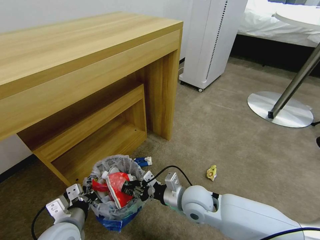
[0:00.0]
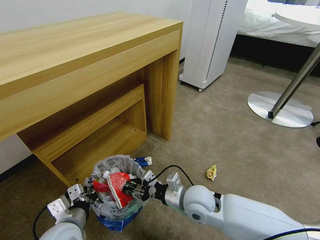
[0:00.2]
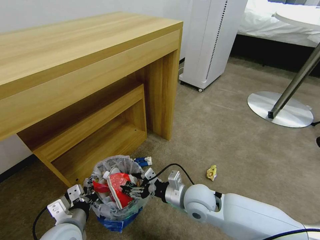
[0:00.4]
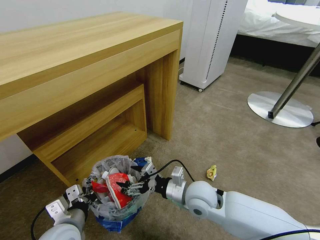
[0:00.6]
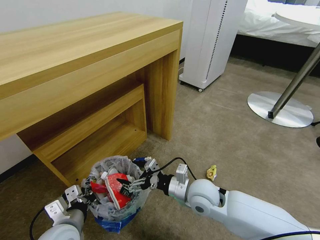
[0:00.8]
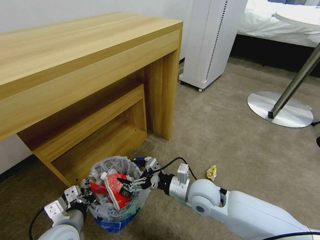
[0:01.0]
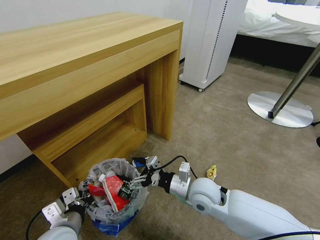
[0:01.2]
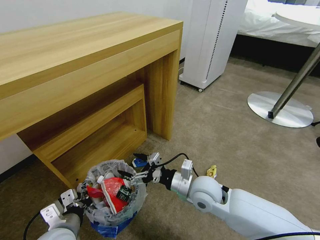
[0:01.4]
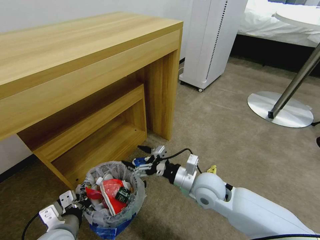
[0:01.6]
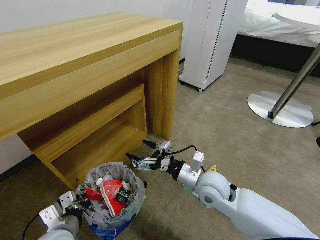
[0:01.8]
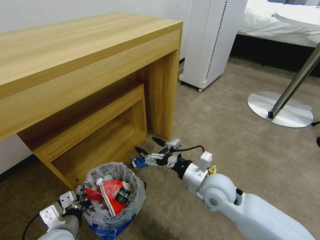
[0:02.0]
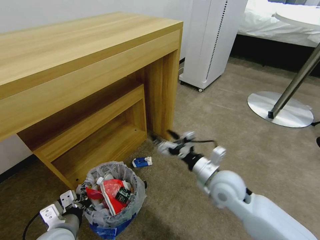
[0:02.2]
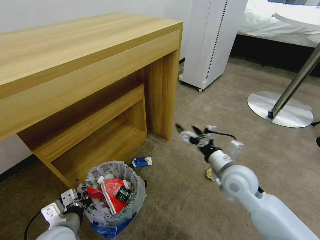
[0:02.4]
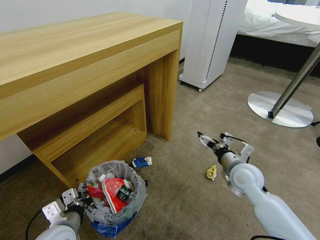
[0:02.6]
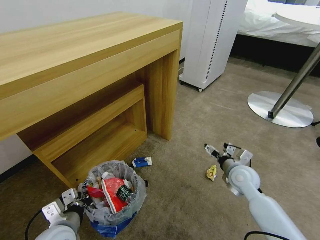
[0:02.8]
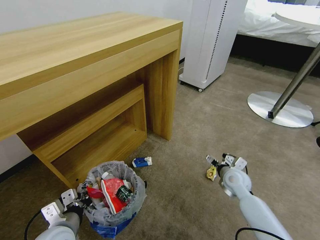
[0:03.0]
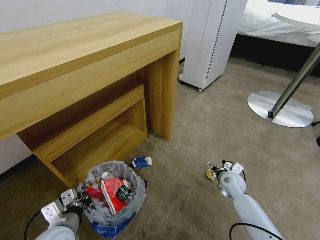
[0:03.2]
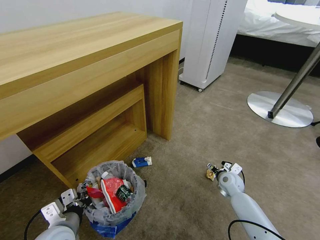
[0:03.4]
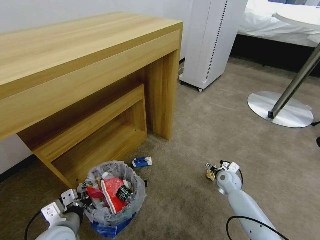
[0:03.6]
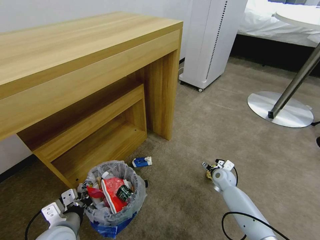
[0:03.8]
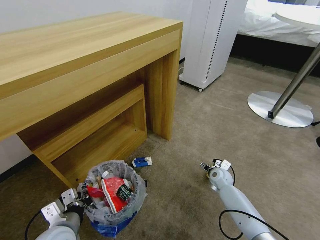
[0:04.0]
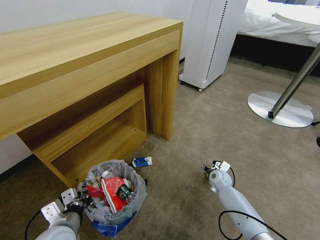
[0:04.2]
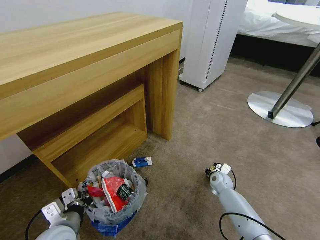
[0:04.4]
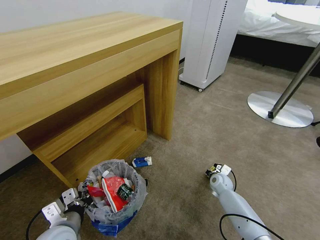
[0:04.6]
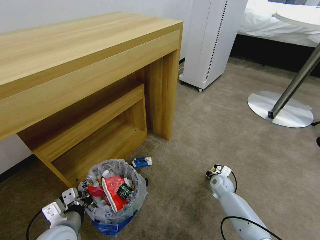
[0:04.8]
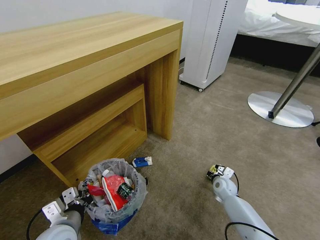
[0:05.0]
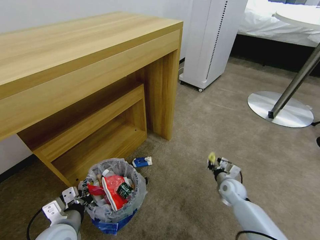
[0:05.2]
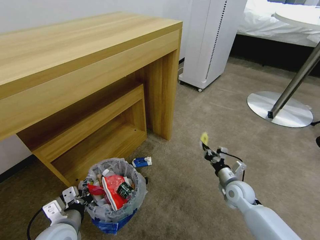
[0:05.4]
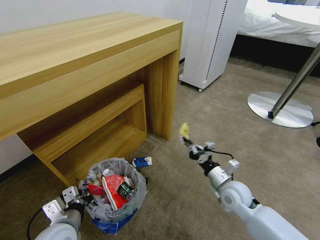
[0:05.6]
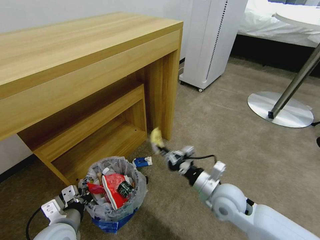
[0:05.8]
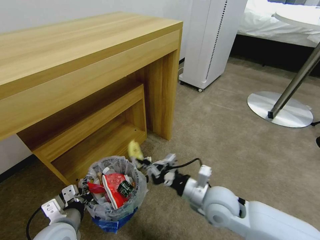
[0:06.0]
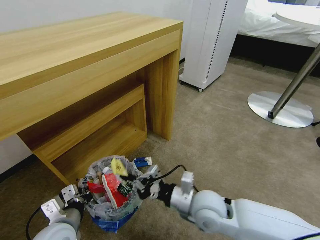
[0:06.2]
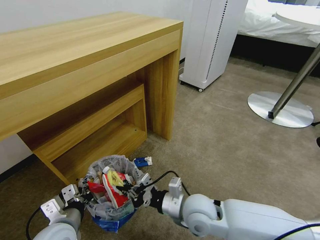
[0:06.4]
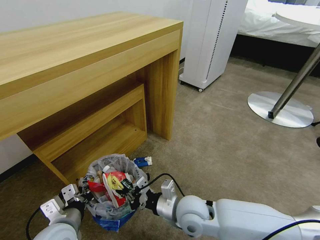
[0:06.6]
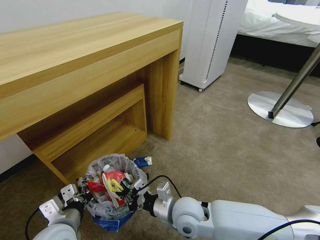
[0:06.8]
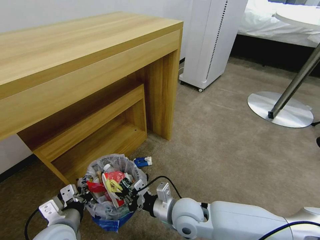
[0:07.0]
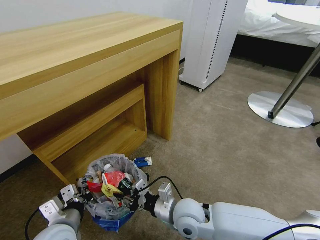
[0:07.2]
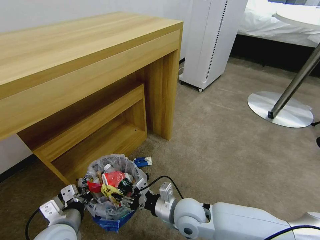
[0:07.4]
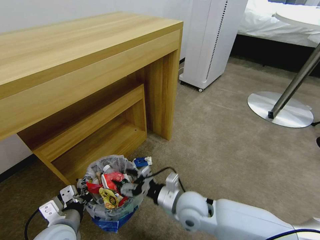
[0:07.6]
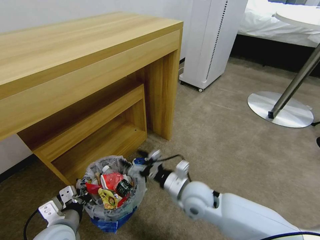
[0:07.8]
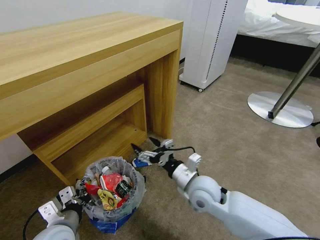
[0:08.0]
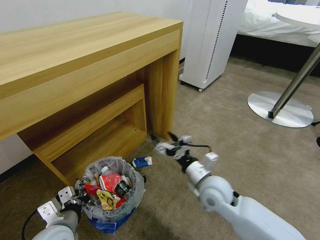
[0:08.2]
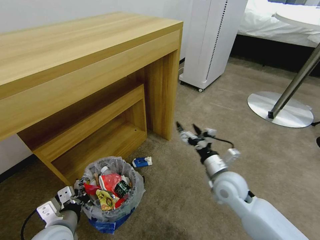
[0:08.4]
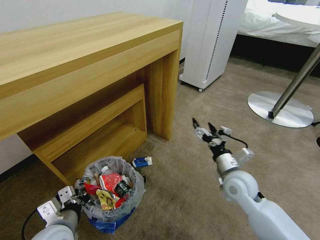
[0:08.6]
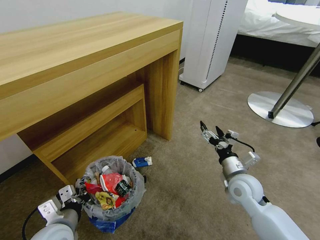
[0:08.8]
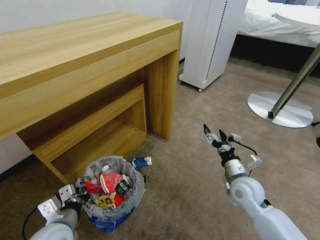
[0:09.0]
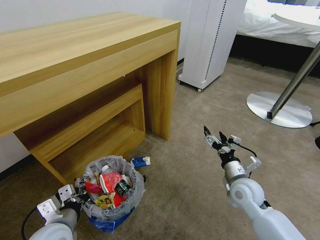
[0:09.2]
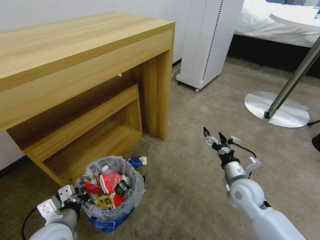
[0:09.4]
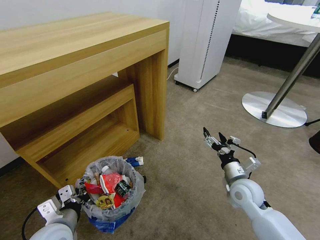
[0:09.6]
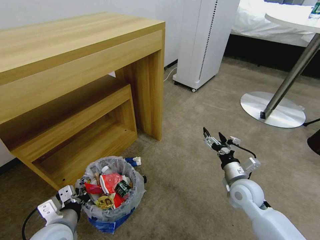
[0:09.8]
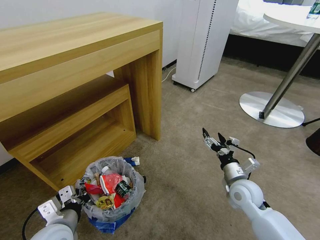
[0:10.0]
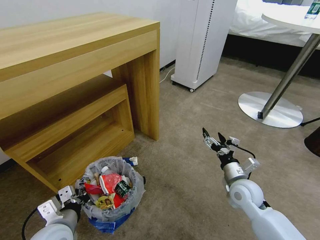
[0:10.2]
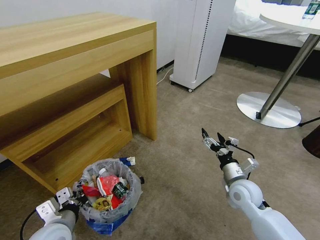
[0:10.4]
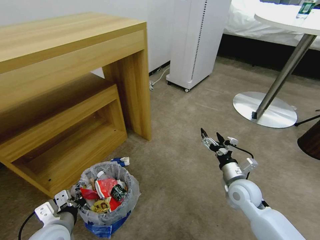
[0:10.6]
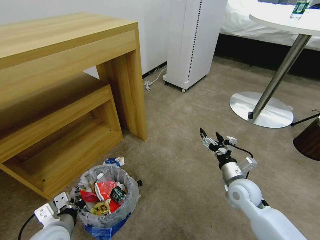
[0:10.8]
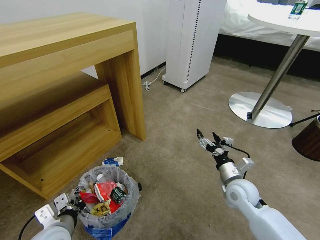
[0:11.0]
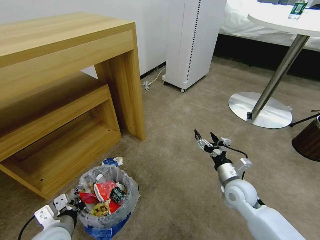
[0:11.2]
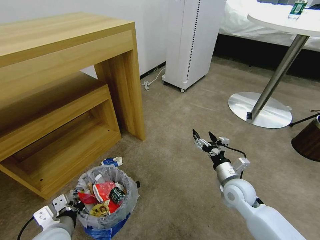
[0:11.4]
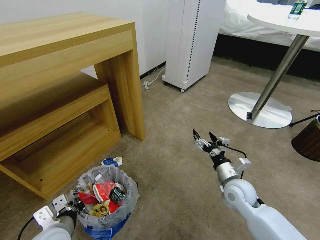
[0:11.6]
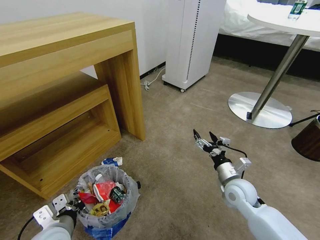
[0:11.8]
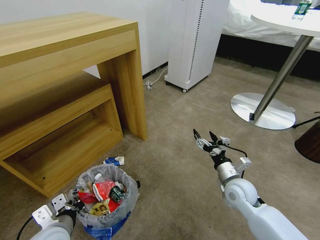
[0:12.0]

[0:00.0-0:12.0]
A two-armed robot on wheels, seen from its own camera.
Task of the whole recording: Pick up the trash bin and place the garbage on the floor into it.
0:00.0 to 0:01.6: The right gripper shifts by approximately 5 cm, and opens up.
0:01.6 to 0:03.0: The right gripper travels to the right, downward and forward by some 20 cm.
0:03.0 to 0:04.4: The right gripper heads downward, covering approximately 10 cm, and closes.
0:04.4 to 0:06.0: The right gripper is displaced upward, backward and to the left by roughly 30 cm, and closes.
0:06.0 to 0:07.6: The right gripper moves to the left, roughly 10 cm, and opens.
0:07.6 to 0:09.0: The right gripper moves to the right, some 20 cm.

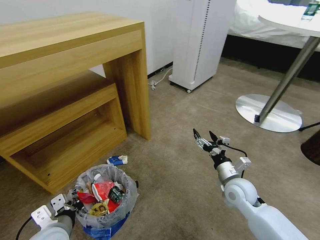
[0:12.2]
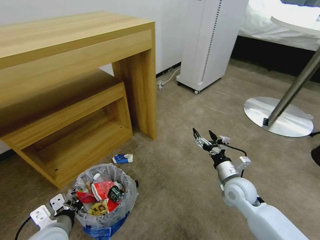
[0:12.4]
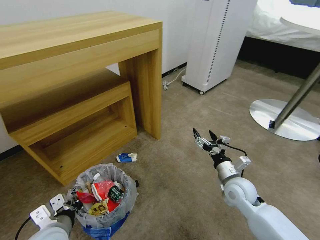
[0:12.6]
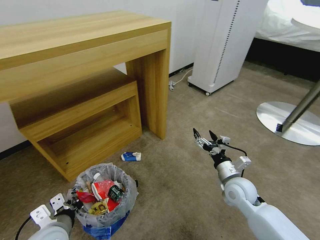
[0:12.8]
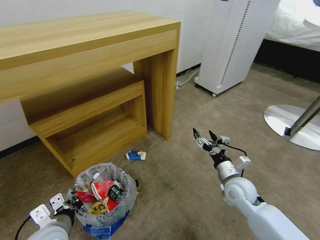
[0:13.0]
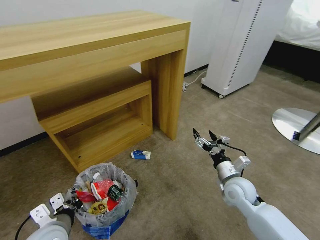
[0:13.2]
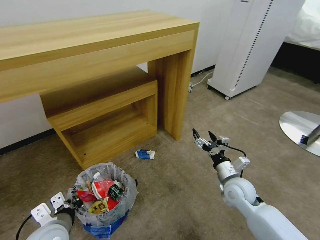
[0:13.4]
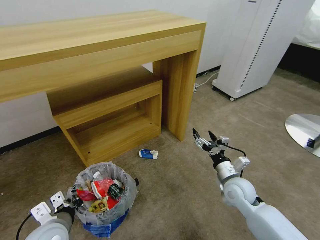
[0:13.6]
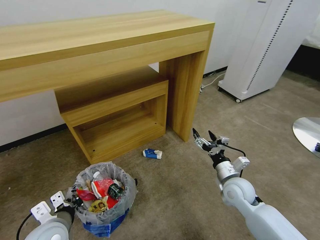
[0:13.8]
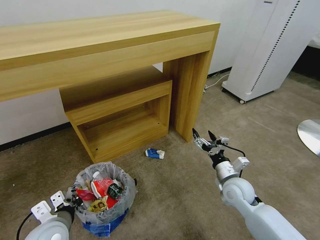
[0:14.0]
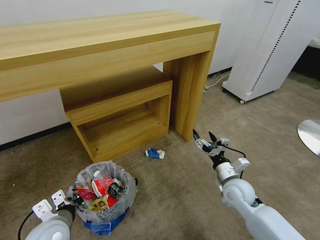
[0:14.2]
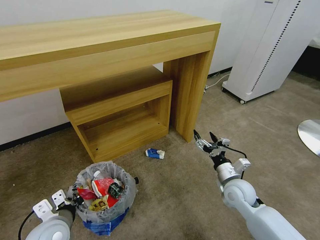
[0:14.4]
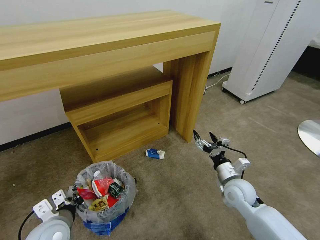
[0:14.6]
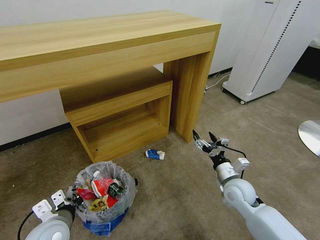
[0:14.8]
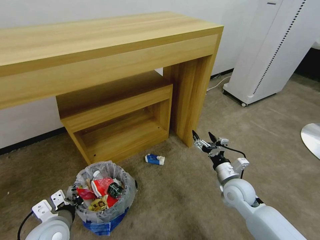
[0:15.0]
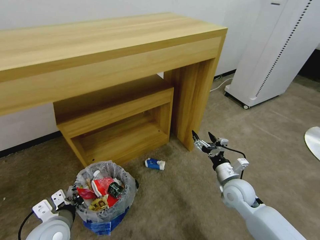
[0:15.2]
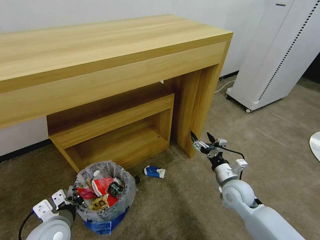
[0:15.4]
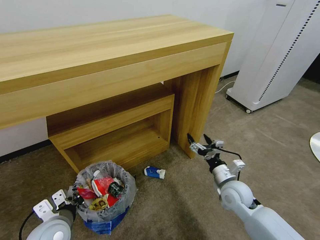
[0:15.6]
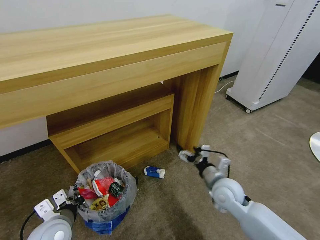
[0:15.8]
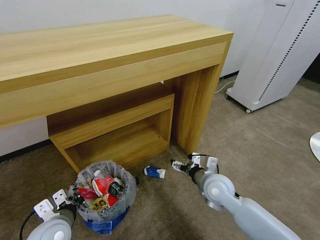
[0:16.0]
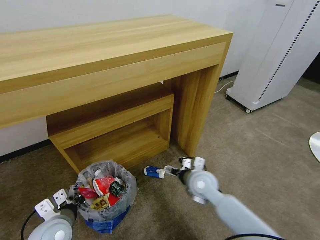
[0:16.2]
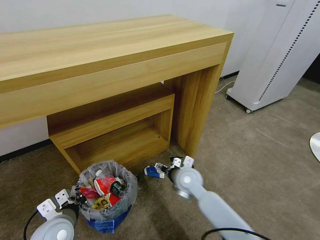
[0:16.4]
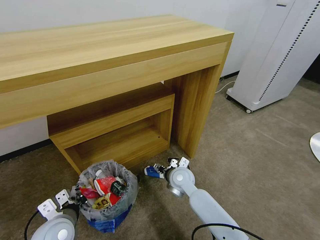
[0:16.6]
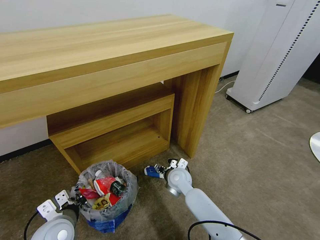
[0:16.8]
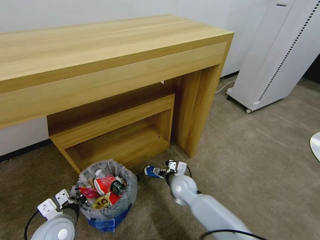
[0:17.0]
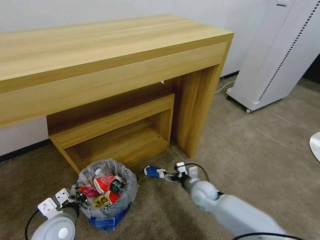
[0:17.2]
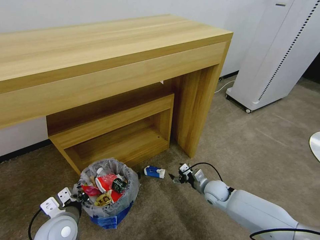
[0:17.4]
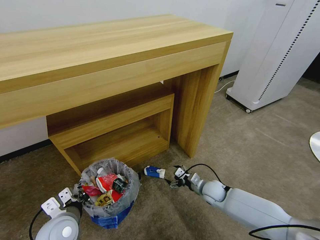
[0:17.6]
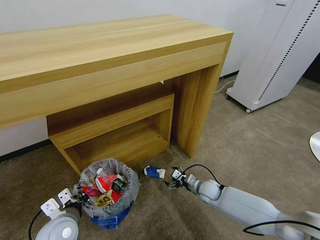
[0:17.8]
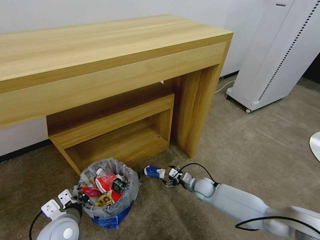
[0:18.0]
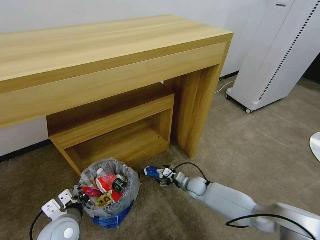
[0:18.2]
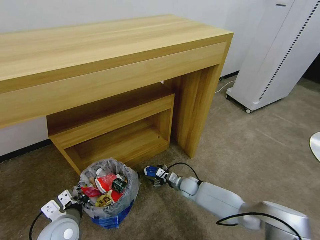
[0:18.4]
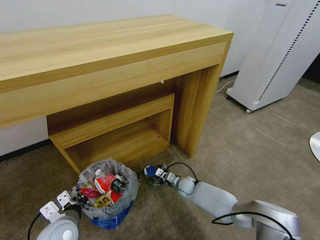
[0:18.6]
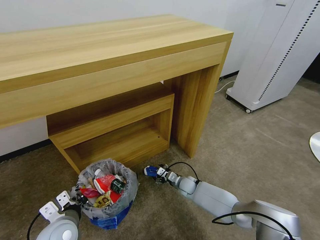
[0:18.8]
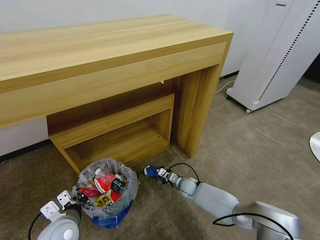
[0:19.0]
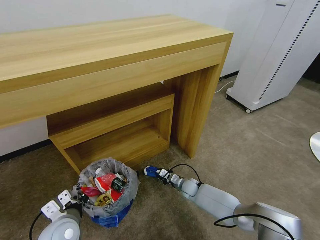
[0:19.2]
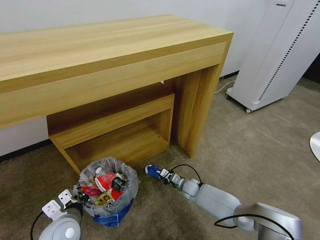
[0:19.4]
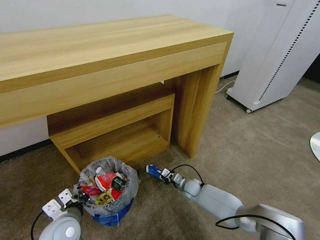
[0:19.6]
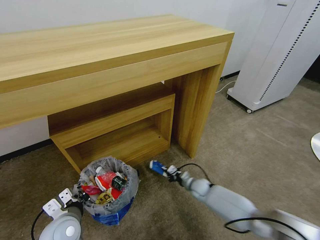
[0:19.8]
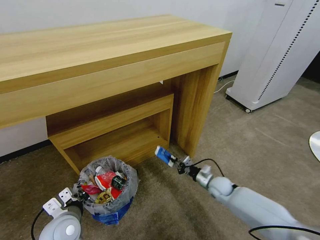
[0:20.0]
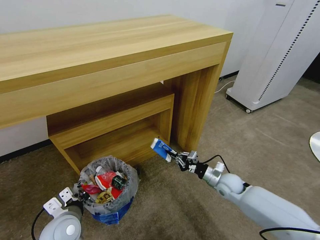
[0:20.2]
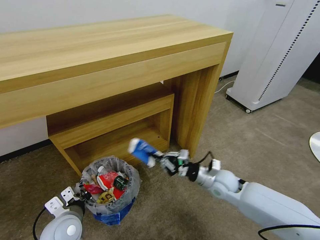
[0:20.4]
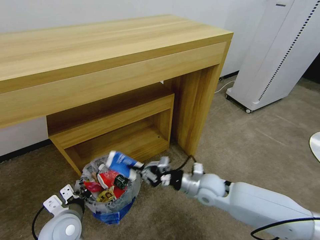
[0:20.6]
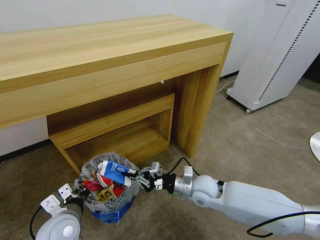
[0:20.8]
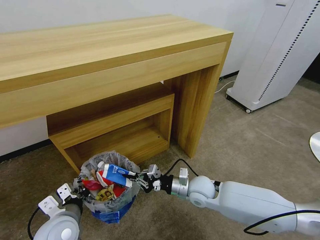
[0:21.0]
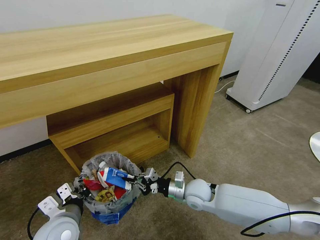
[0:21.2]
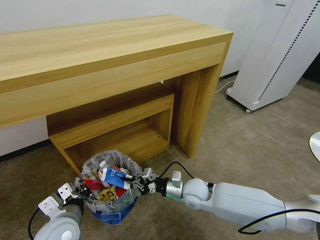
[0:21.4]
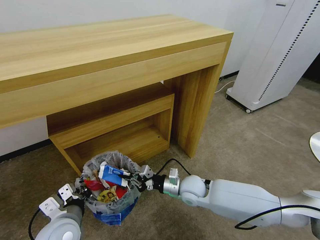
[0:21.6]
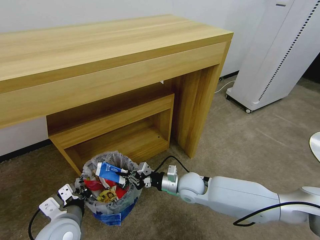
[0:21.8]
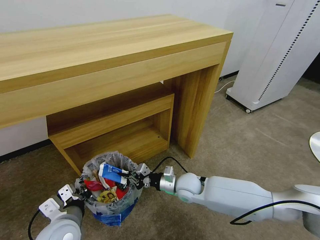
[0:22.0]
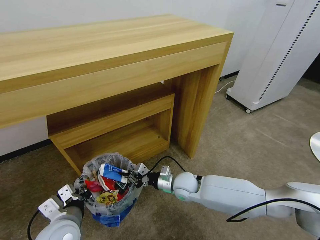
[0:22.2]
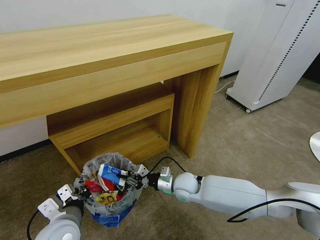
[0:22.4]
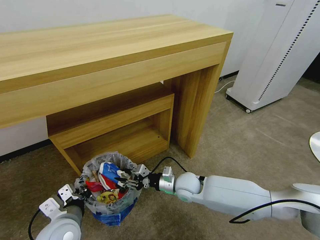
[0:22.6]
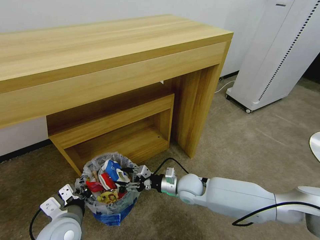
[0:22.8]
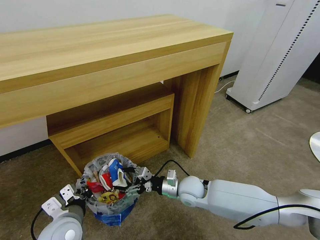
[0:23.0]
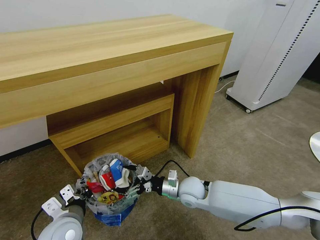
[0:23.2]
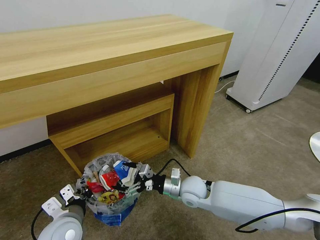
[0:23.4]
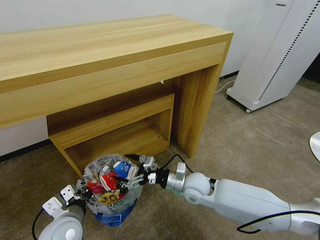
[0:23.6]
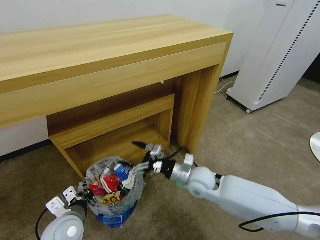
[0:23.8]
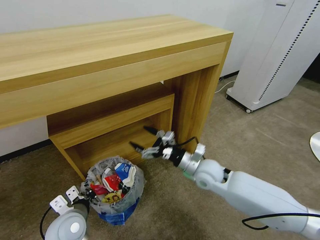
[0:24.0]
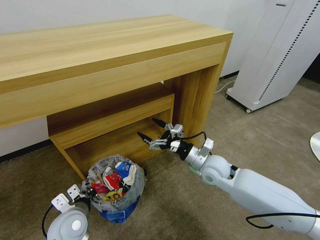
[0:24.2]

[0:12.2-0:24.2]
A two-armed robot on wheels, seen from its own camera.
Task of the whole recording: Pick up the trash bin and place the garbage on the floor into it.
0:15.2 to 0:16.6: The right gripper travels to the left by roughly 20 cm.
0:16.6 to 0:18.2: The right gripper shifts approximately 15 cm downward and to the right.
0:18.2 to 0:19.8: The right gripper closes up.
0:19.8 to 0:21.2: The right gripper moves upward, to the left and backward, about 20 cm. Meanwhile the left gripper ends up approximately 5 cm from where it was.
0:21.2 to 0:22.6: The right gripper opens up.
0:22.6 to 0:24.2: The left gripper changes place by approximately 5 cm, while the right gripper goes roughly 15 cm upward and to the right, and opens up.
